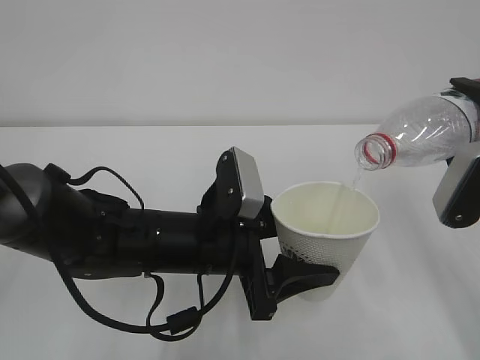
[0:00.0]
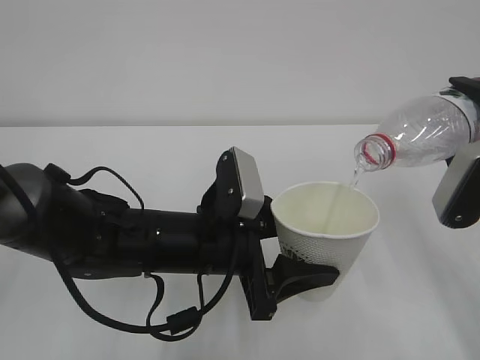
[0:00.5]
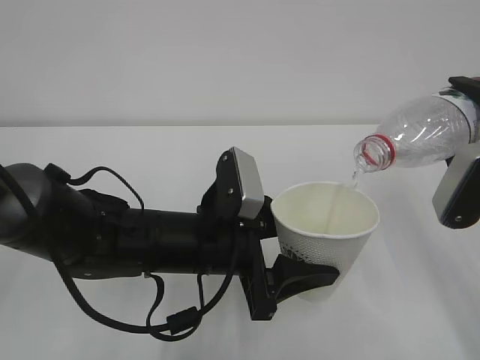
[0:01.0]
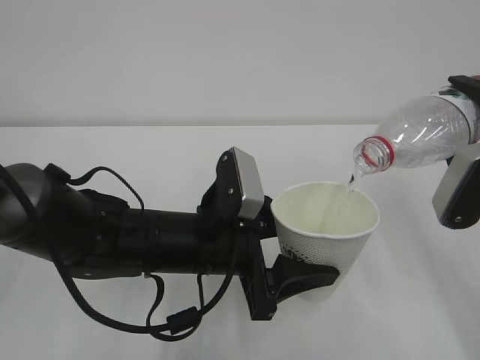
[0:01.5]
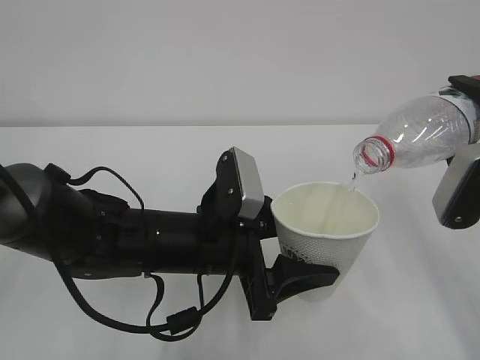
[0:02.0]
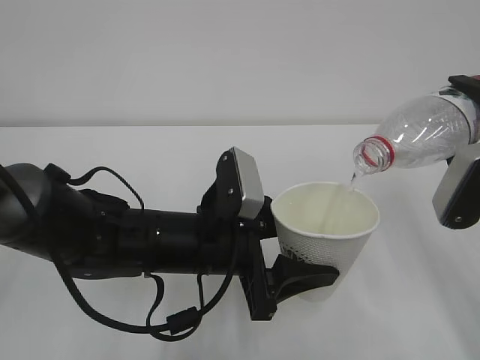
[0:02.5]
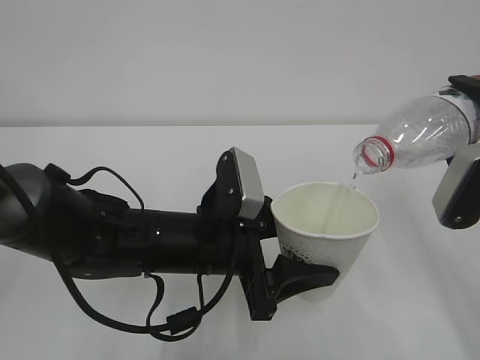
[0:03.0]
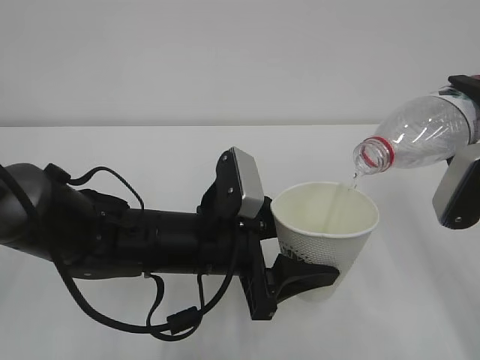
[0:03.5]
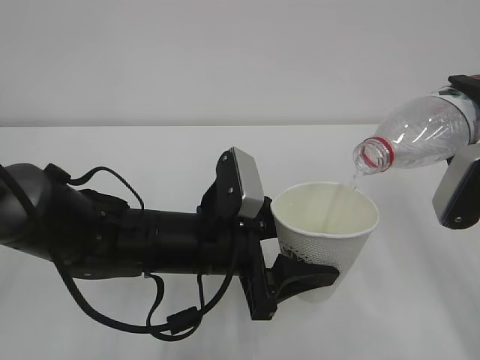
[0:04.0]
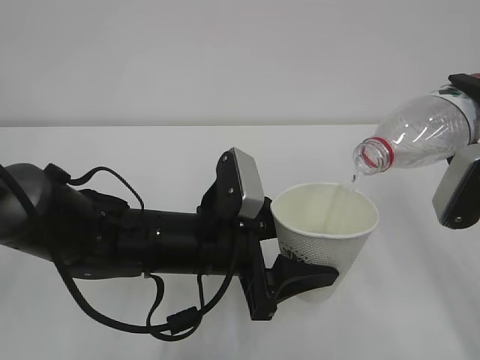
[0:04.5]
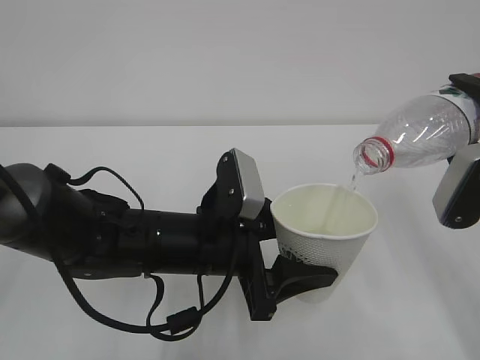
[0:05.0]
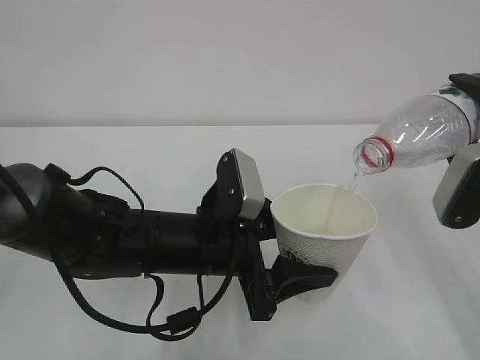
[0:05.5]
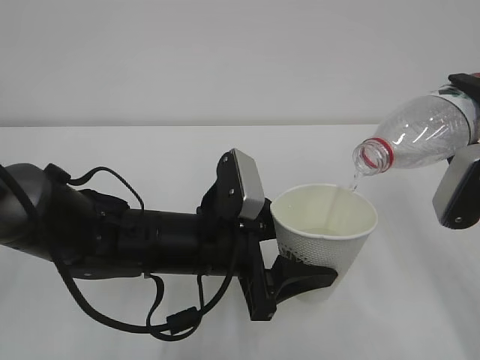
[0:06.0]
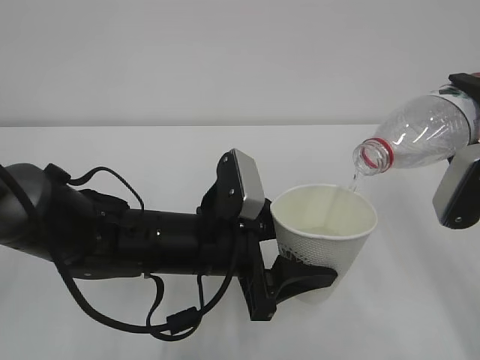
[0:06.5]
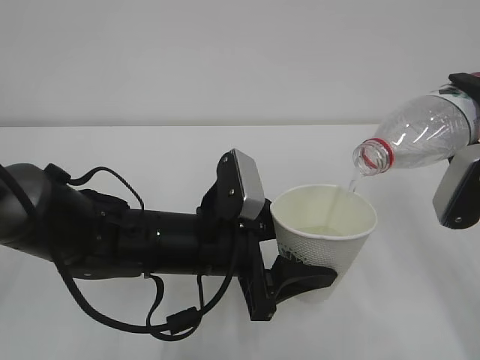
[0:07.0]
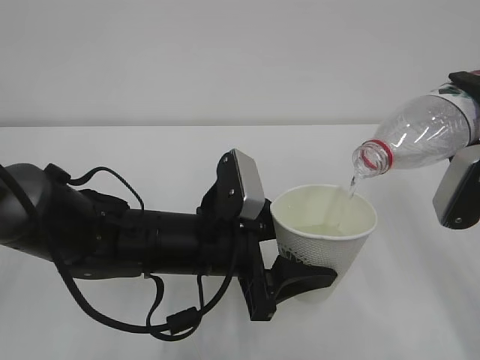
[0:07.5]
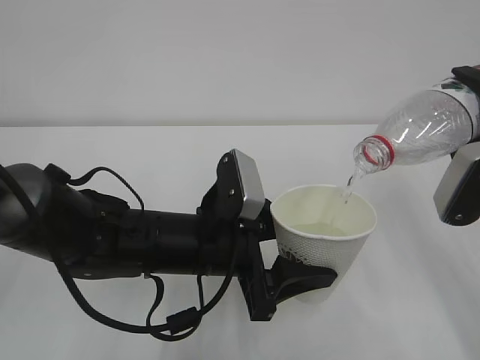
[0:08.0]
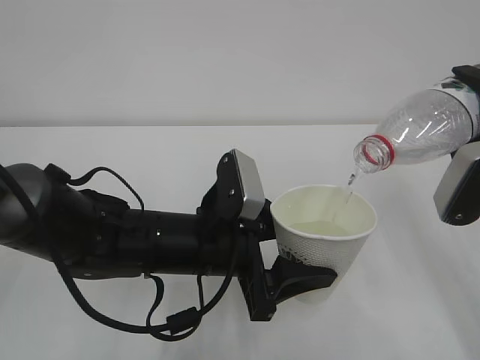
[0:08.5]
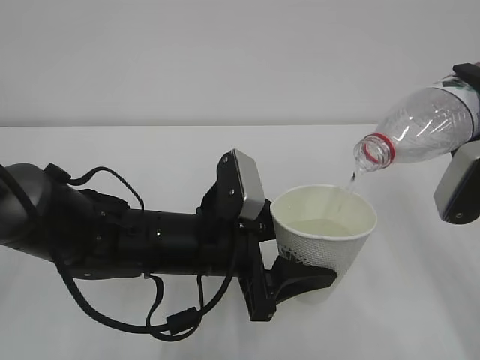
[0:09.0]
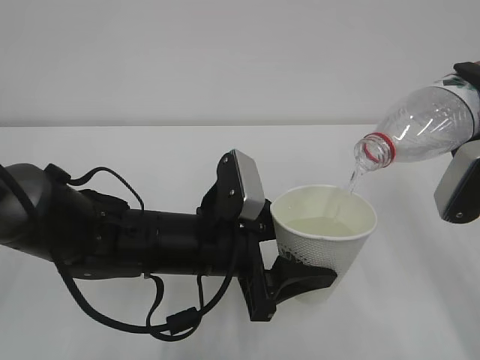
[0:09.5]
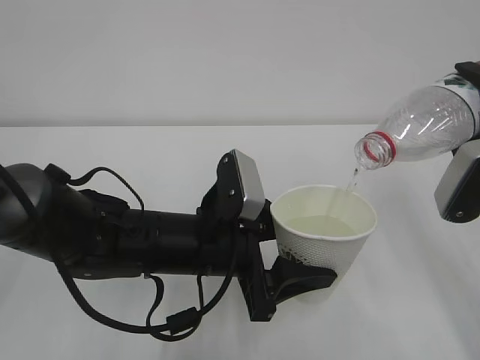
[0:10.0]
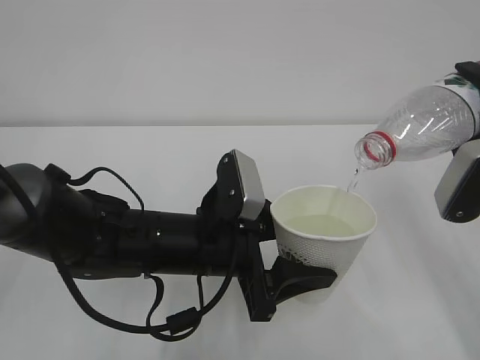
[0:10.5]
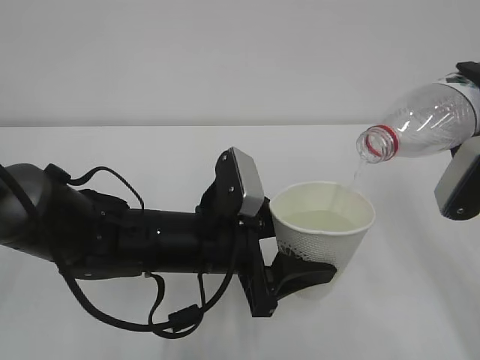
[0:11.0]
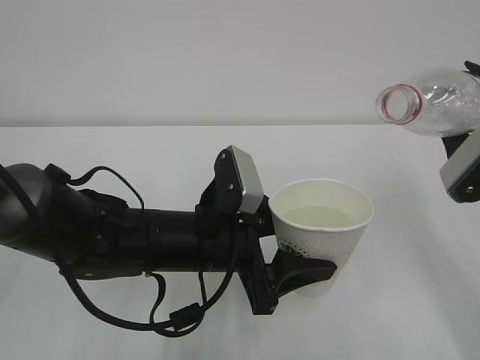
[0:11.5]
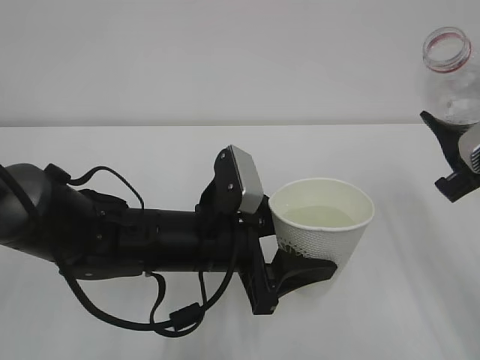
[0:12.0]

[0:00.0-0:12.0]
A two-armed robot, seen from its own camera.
0.0 to 6.0 s: Both grippers stay put.
6.0 to 10.0 s: Neither gripper changes place.

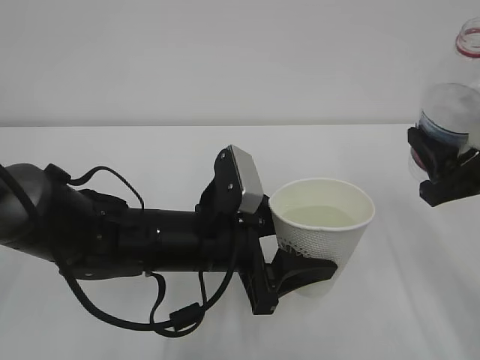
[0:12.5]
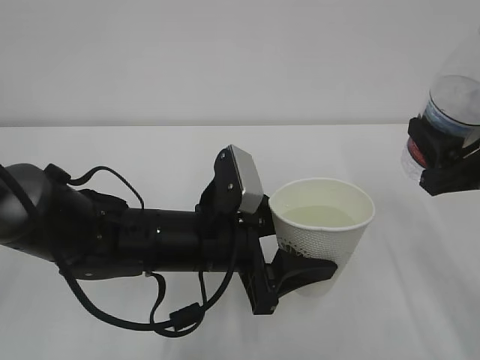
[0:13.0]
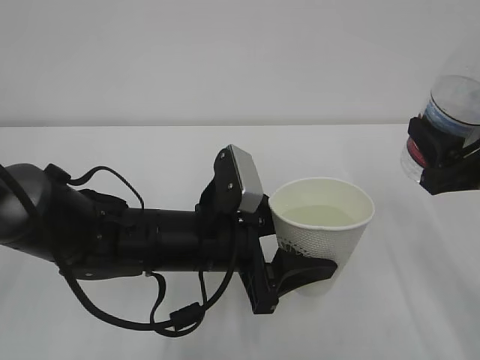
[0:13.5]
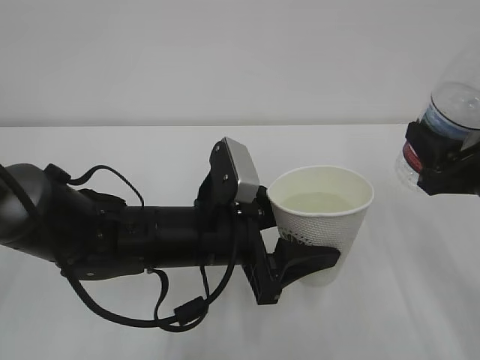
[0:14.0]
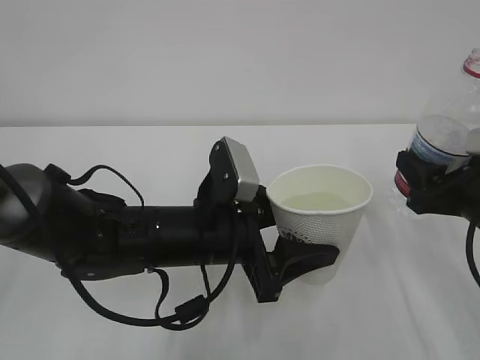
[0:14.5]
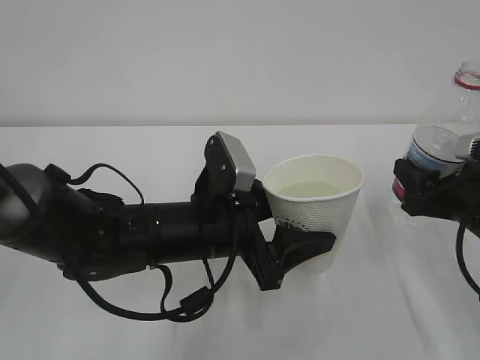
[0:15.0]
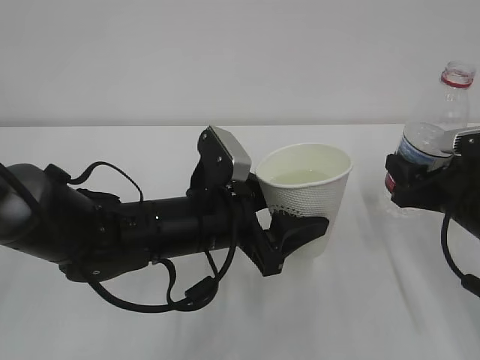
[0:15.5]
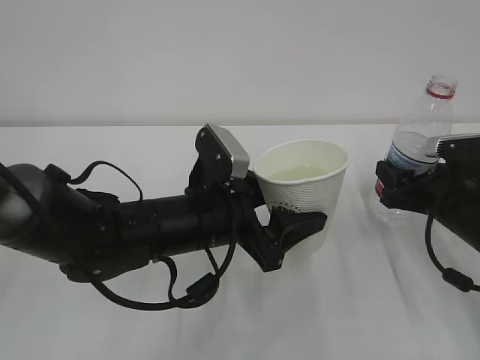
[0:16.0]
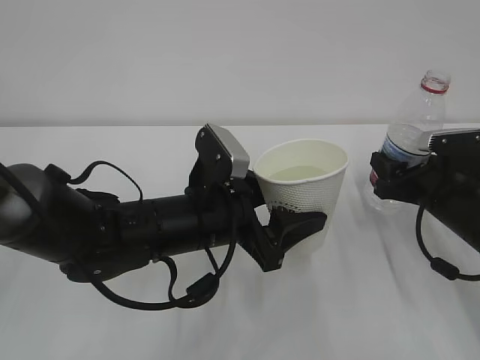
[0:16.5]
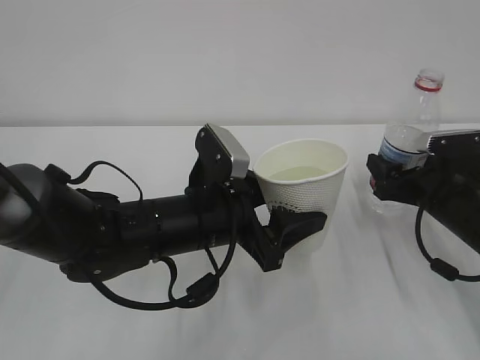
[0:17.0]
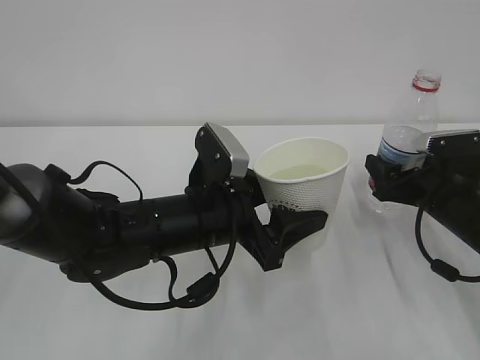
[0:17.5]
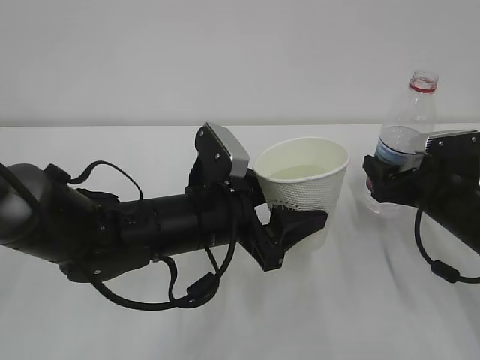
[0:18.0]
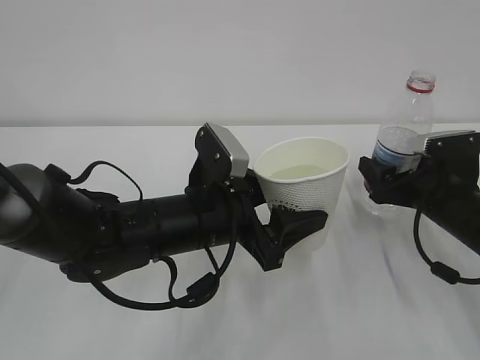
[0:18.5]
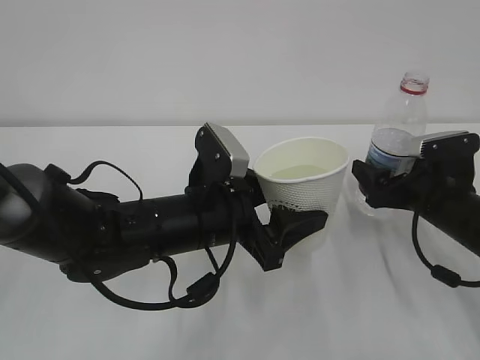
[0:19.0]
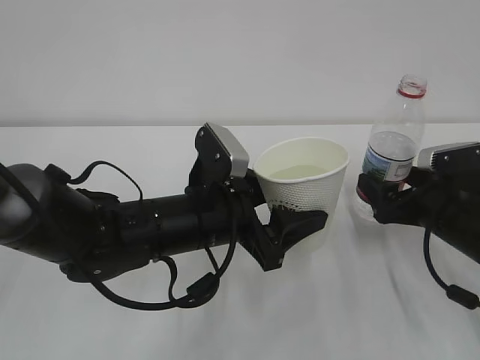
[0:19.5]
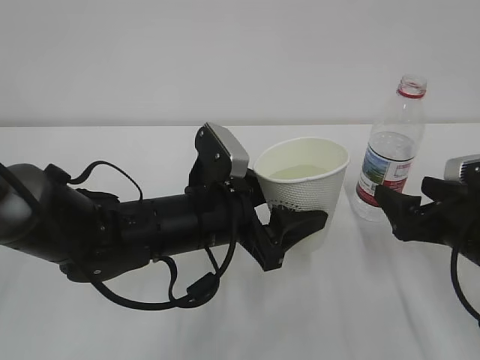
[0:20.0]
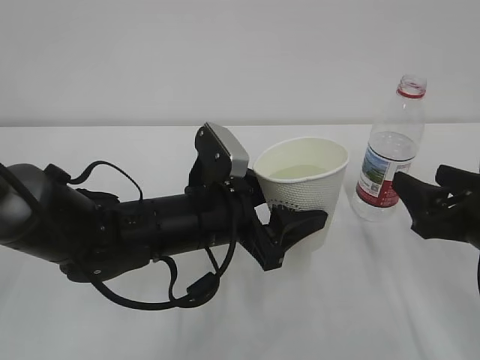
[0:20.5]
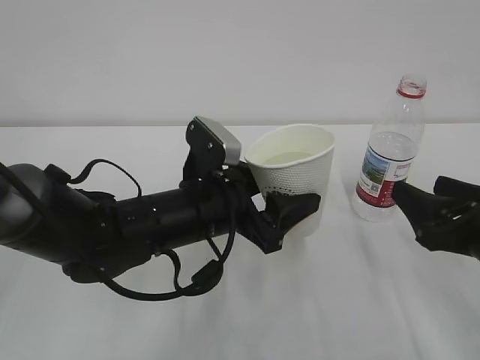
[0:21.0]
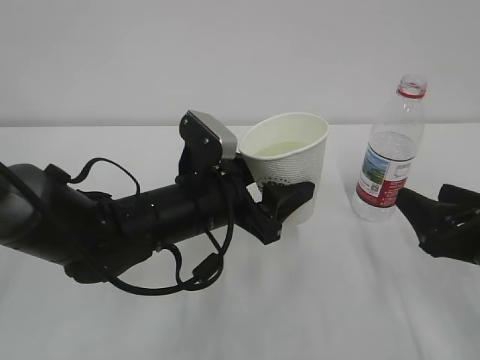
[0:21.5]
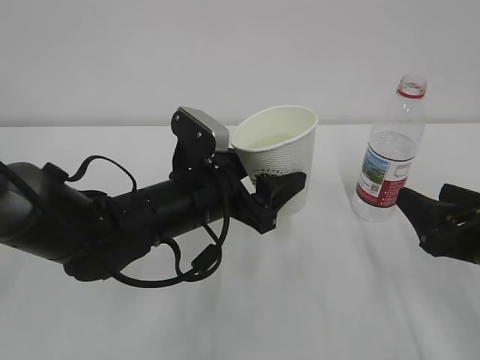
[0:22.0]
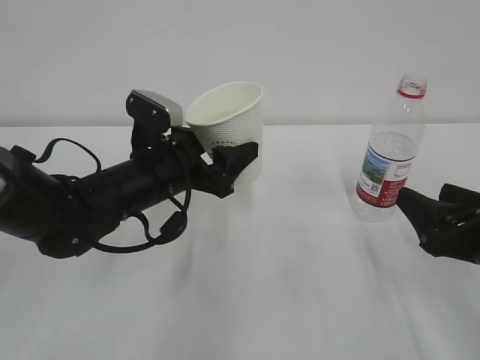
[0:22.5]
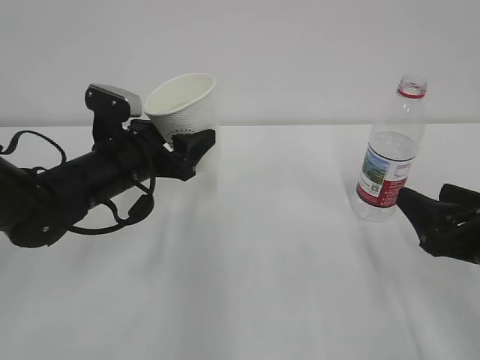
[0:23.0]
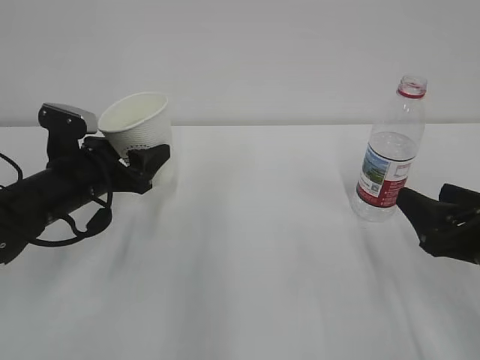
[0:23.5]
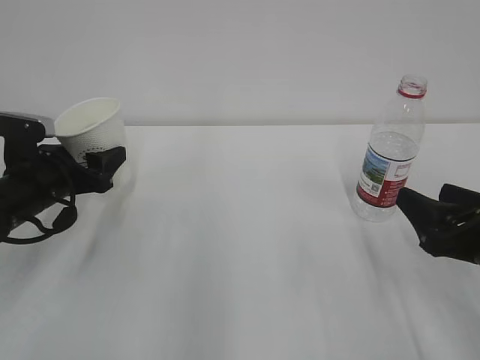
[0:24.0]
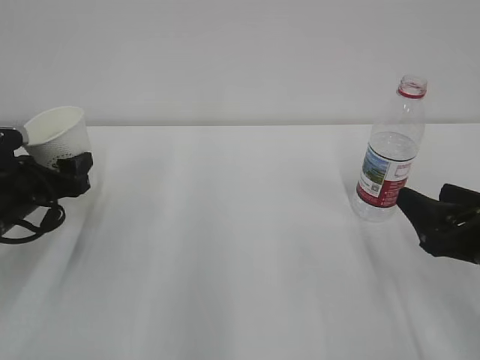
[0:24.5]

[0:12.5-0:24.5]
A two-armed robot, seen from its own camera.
12.5 to 14.5 s: The grippers make only small movements.
14.5 to 16.5 s: The right gripper is displaced forward and downward by approximately 10 cm.
16.5 to 18.5 s: The right gripper opens.
18.5 to 20.5 s: The right gripper travels backward and upward by approximately 10 cm, and closes up.
20.5 to 22.5 s: The left gripper travels forward and to the left by some 10 cm.
22.5 to 24.5 s: The left gripper goes some 20 cm to the left.

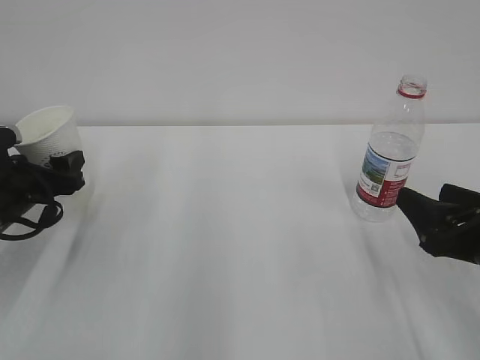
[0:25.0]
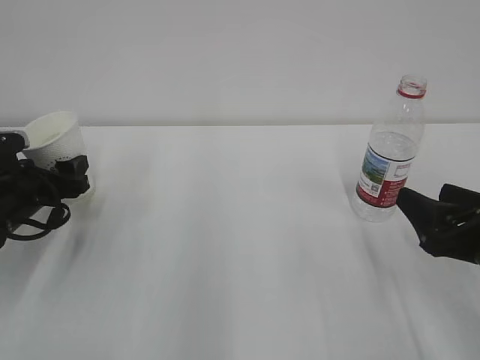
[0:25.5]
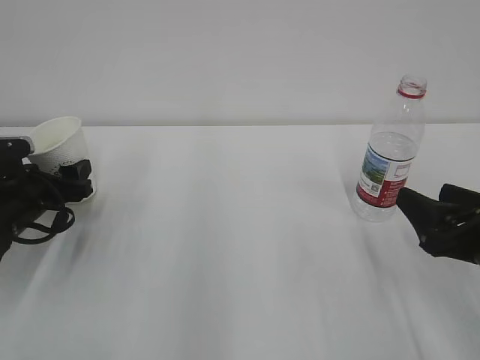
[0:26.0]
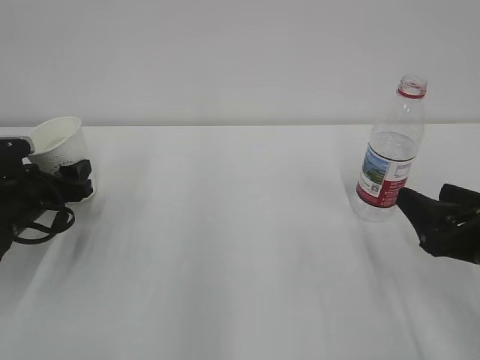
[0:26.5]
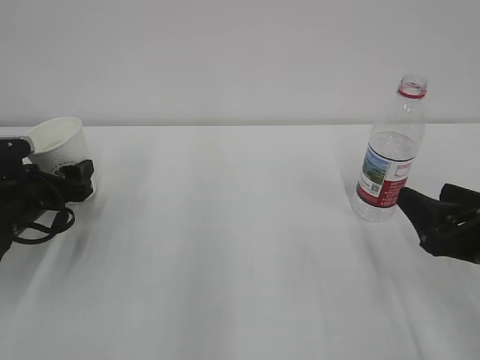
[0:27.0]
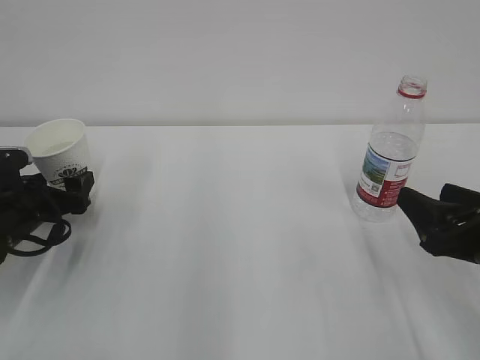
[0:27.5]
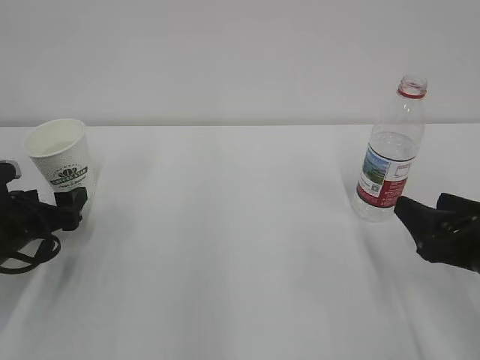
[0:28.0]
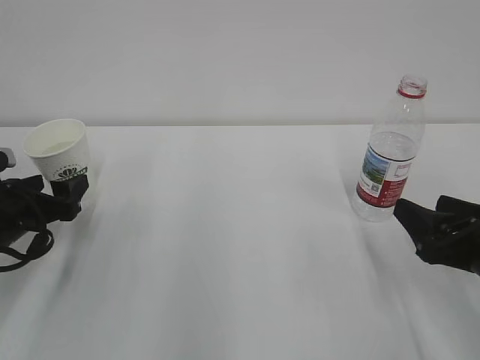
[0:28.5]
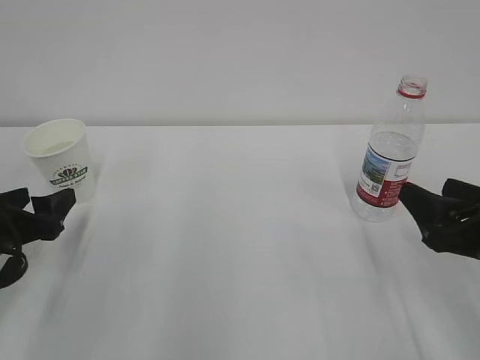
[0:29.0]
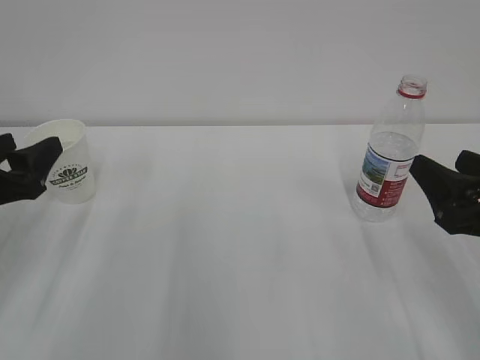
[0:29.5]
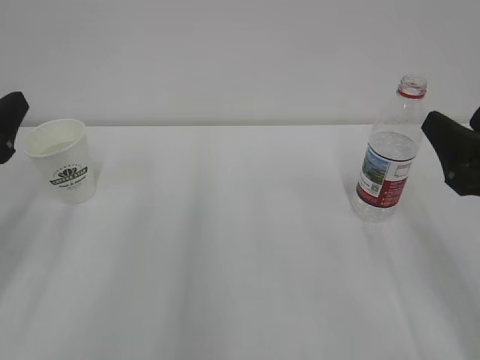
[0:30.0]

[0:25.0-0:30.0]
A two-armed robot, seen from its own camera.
25.0 to 27.5 s: The left gripper opens.
27.5 to 30.0 s: The right gripper is displaced upward by some 5 cm. Meanwhile the left gripper is displaced upward and backward by about 15 cm, and closes up.
